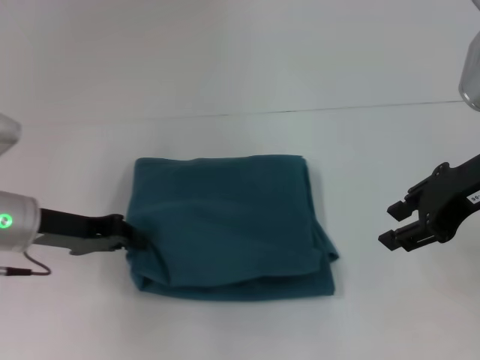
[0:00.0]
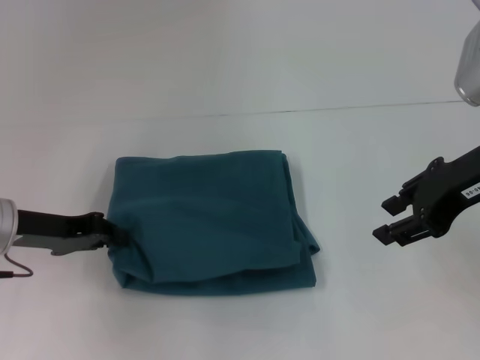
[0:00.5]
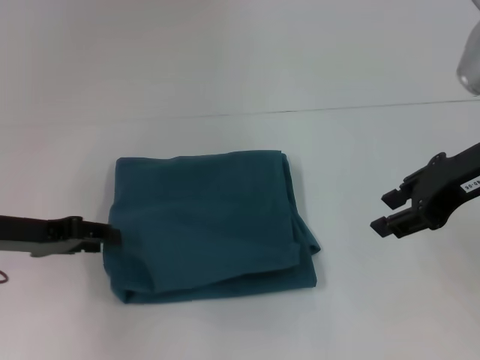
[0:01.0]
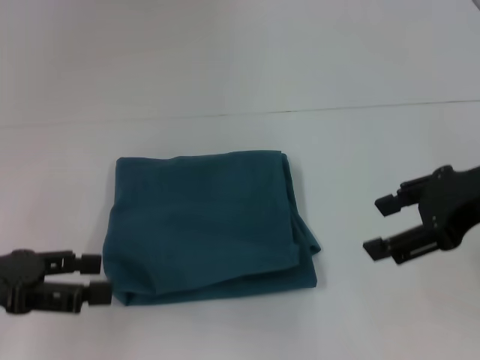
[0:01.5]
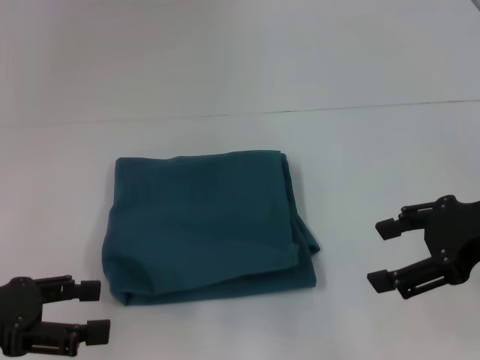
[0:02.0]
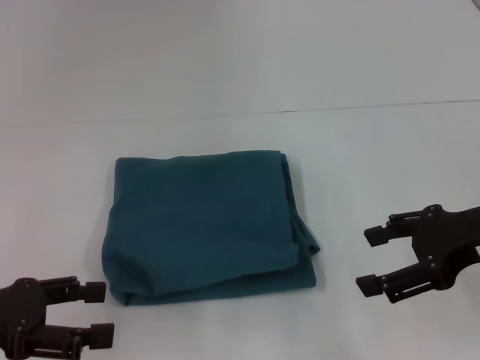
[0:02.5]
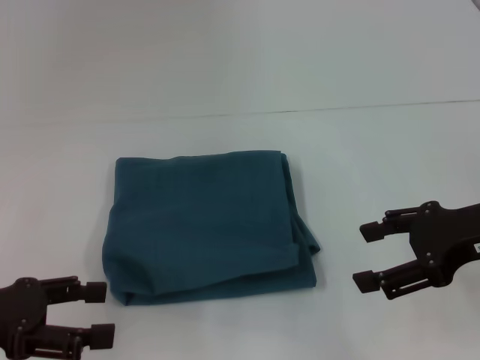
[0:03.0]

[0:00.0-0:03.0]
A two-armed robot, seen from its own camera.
0:00.0 to 0:01.5: The left gripper shifts approximately 10 cm backward and to the left, and opens up.
0:01.5 to 0:03.0: The right gripper ends up roughly 5 cm from where it was.
